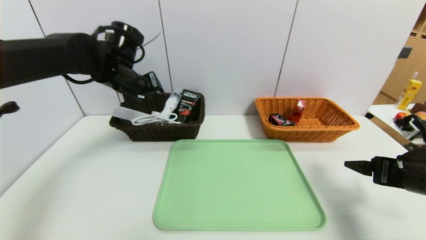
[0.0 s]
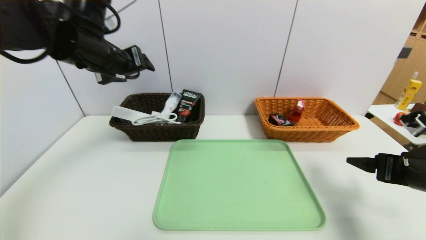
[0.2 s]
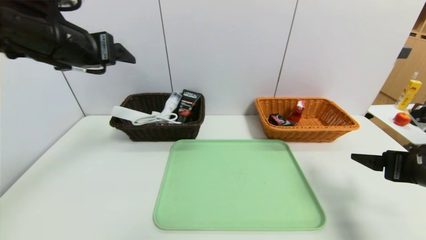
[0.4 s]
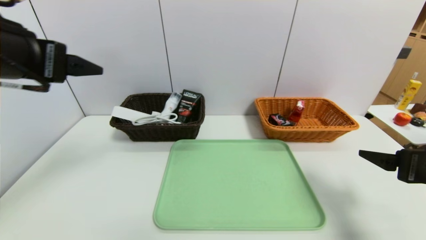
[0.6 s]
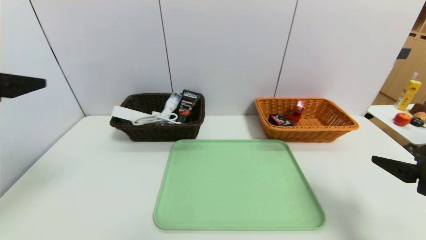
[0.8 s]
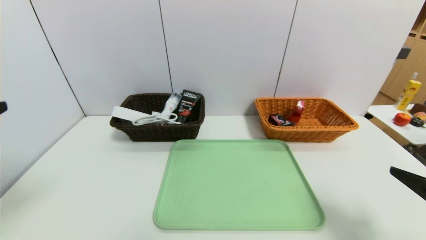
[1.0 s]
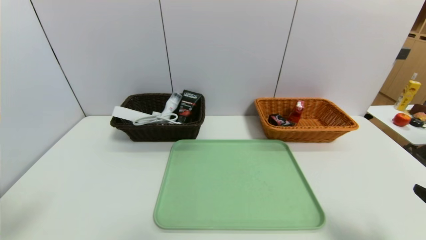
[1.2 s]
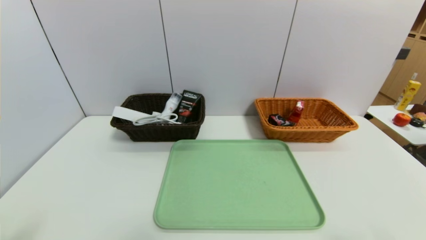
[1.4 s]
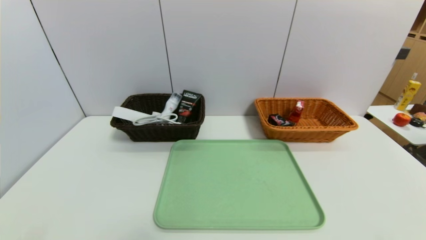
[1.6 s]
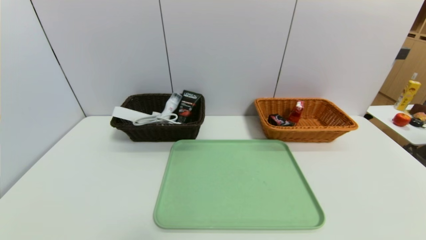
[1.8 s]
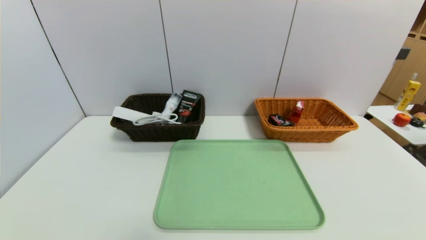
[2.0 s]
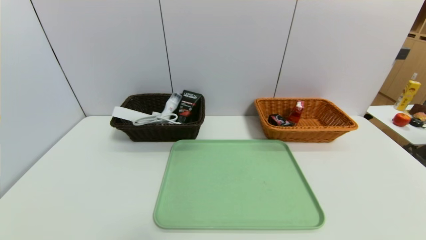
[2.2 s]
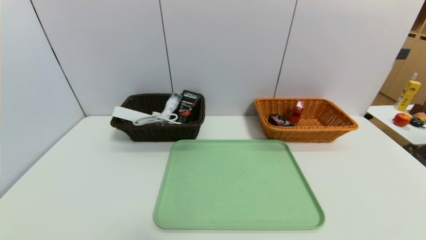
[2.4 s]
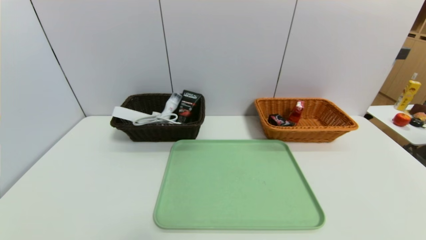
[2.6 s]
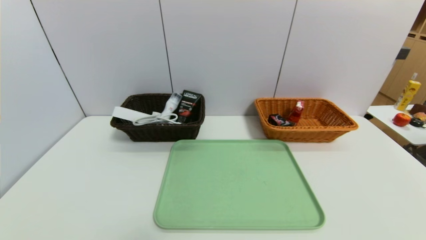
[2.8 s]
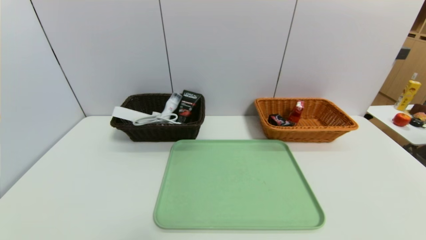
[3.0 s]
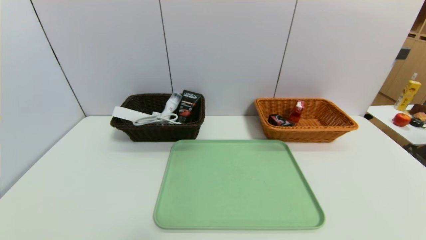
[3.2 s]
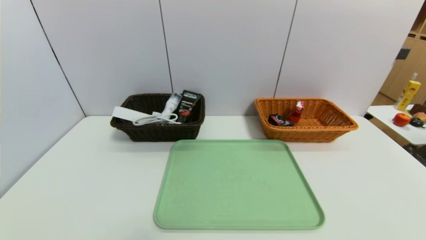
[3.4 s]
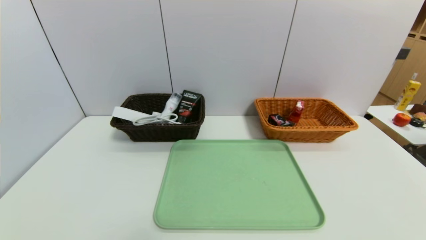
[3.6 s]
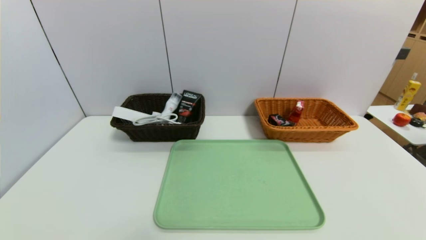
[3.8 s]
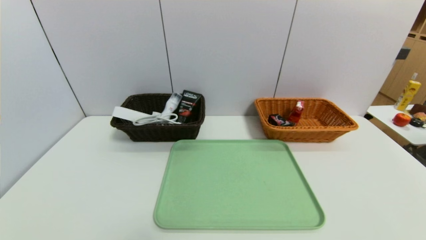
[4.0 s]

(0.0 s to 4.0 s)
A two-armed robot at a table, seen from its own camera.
Task of the whole recording: place the food in the right basket with the right gripper, and place the non food items in the left basket with the left gripper.
0.0 s - 1.4 s: The left gripper is displaced backward by some 35 cm. The right gripper moves backward, about 20 cm.
